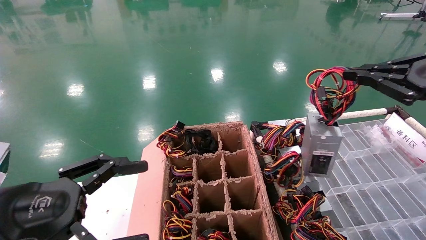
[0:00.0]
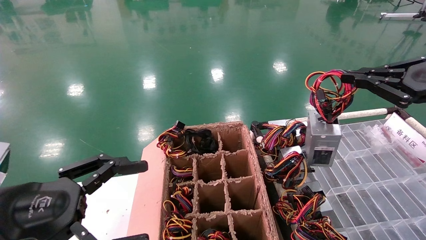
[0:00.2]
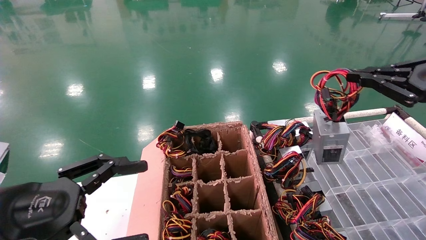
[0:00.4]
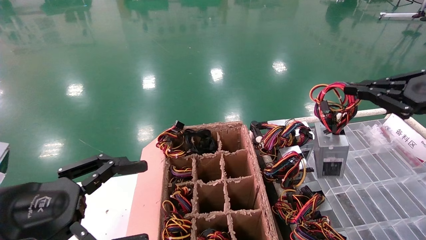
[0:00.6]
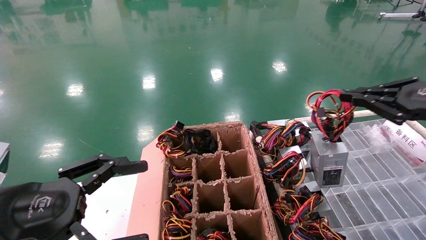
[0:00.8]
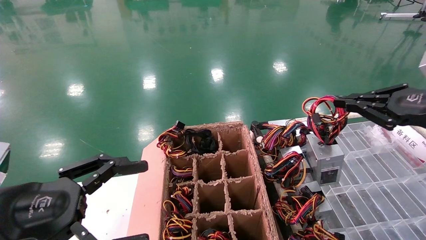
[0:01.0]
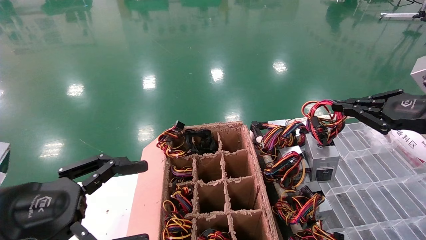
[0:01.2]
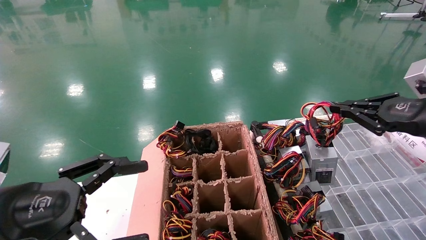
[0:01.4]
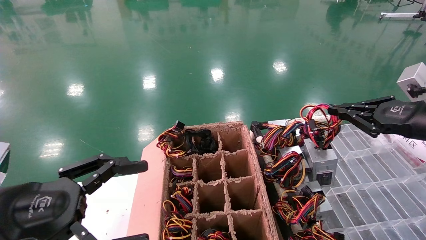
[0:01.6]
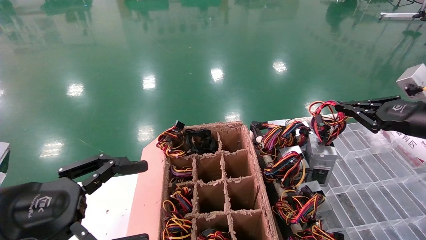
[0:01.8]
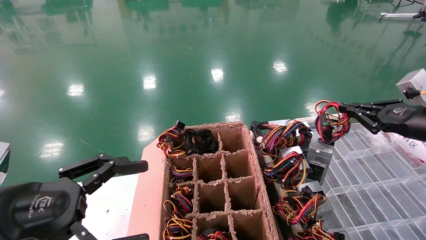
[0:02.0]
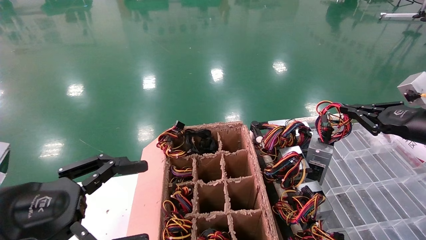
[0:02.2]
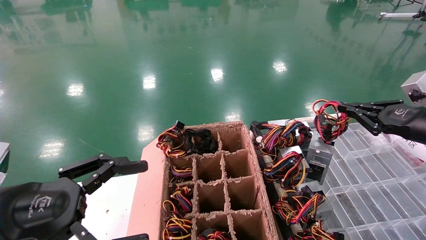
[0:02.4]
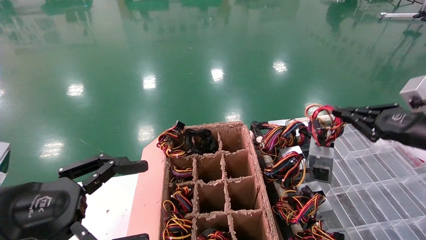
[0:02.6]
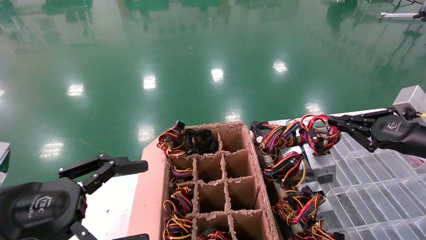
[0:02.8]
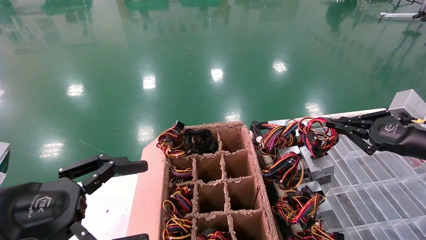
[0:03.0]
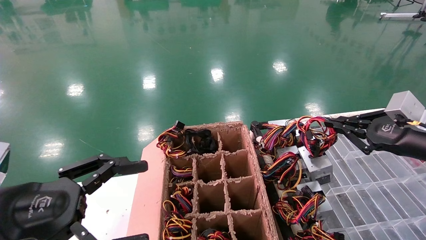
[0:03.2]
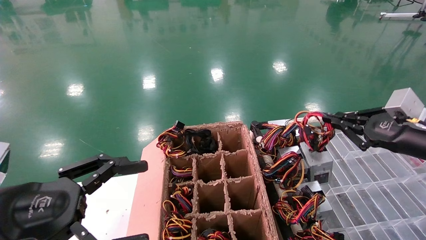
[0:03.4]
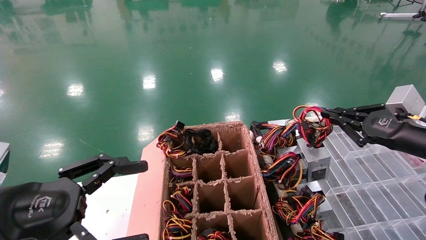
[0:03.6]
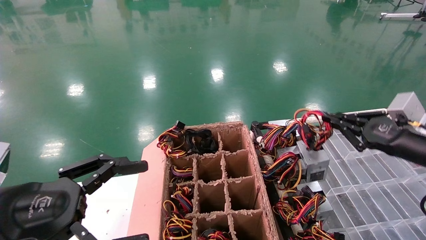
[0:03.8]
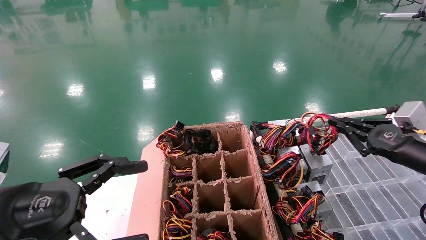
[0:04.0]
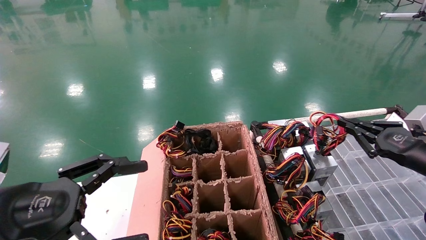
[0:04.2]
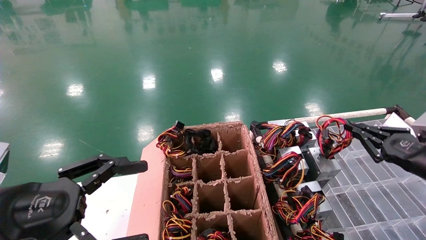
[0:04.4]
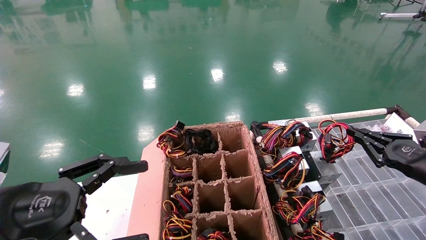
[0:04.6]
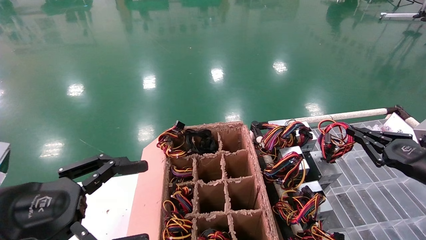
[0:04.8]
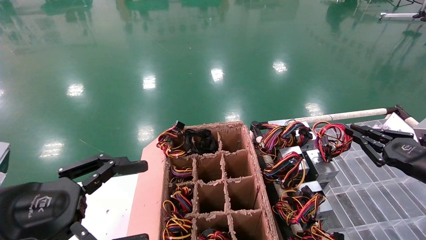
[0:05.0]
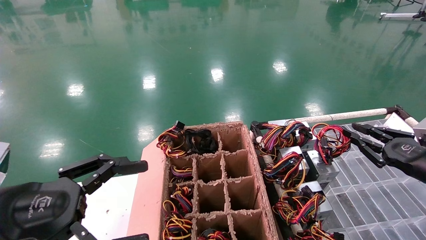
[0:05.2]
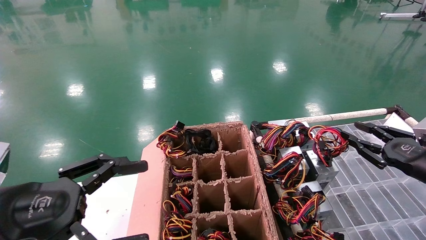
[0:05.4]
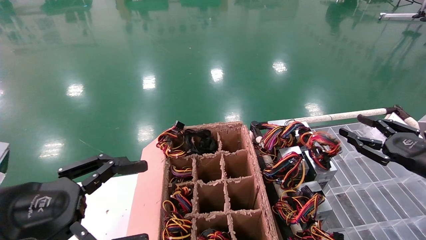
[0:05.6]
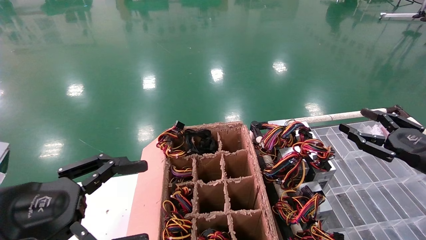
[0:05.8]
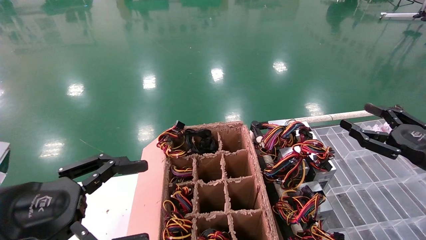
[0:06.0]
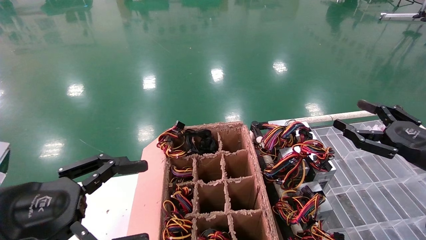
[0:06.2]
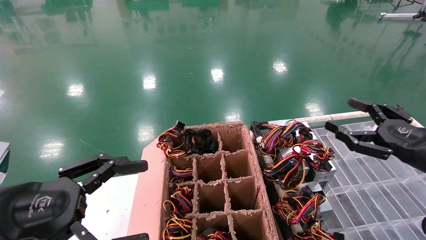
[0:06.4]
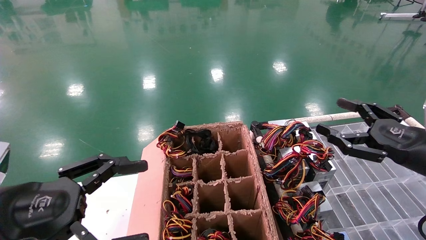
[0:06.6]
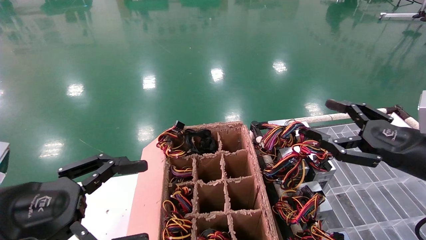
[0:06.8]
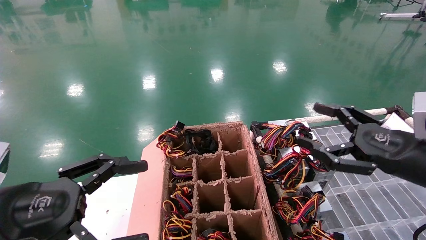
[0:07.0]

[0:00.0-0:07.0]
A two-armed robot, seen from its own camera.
Step, 0:00.0 to 0:04.8: Place the power supply on the operating table.
0:00.0 to 0:01.4: The right gripper is displaced downward and forward by some 10 cm.
0:01.4 to 0:02.8: The right gripper changes place by some 5 cm.
0:02.8 to 0:04.2: The right gripper travels downward by about 5 cm.
0:04.2 to 0:05.6: The right gripper opens up.
0:05.6 to 0:07.0: The right gripper goes some 10 cm to the left, and opens its fingers.
